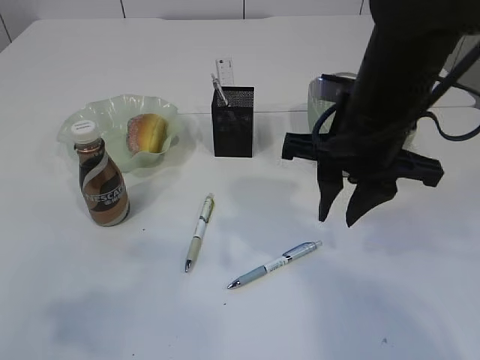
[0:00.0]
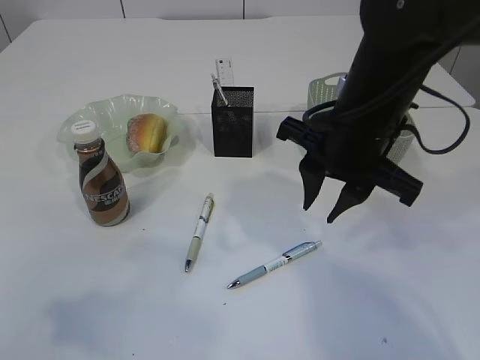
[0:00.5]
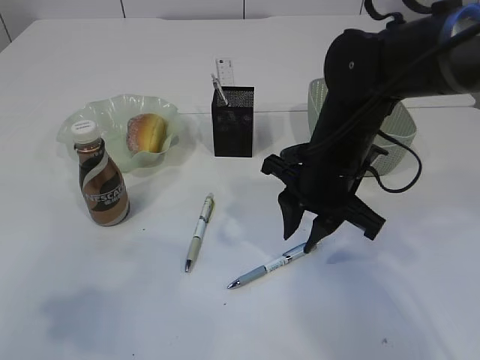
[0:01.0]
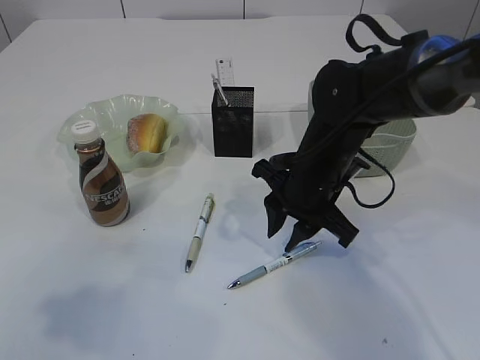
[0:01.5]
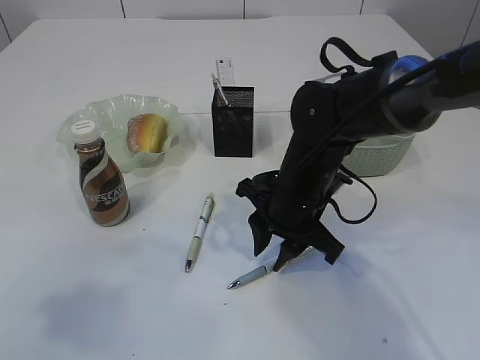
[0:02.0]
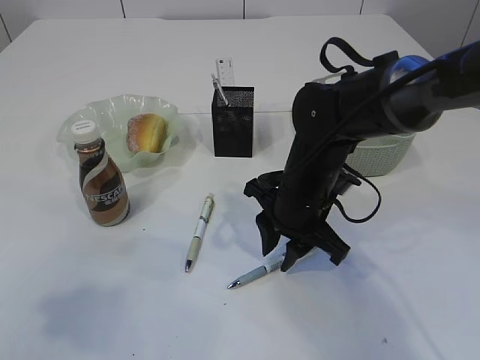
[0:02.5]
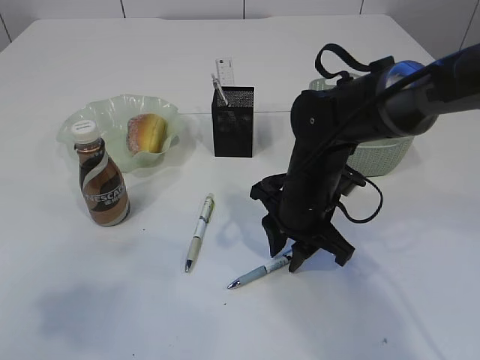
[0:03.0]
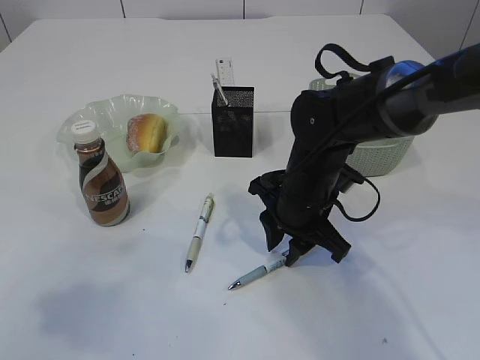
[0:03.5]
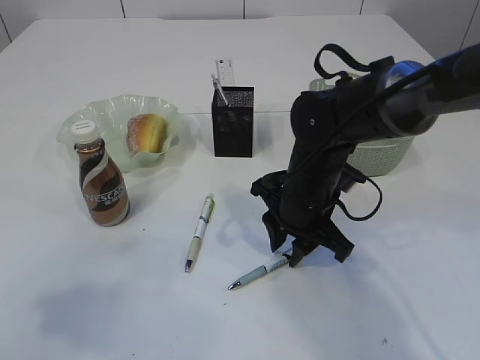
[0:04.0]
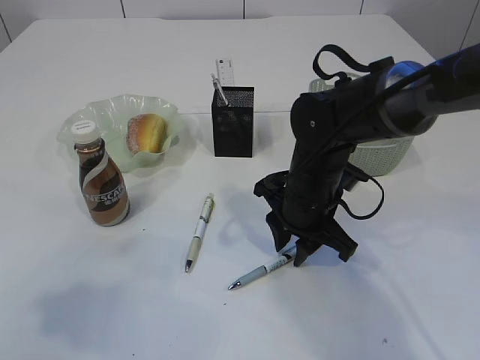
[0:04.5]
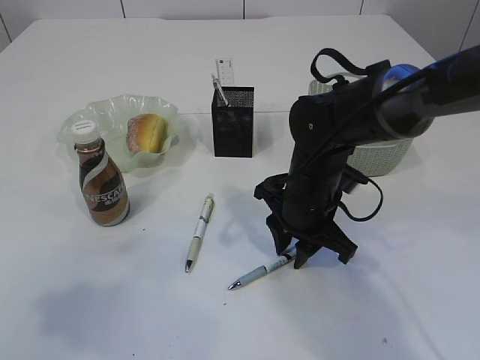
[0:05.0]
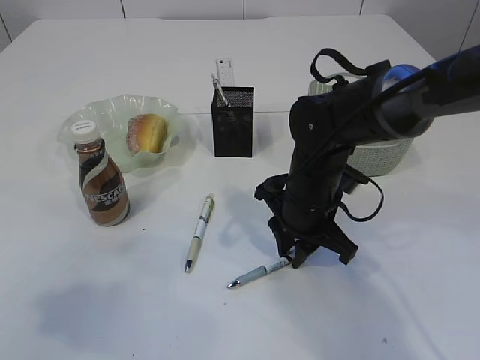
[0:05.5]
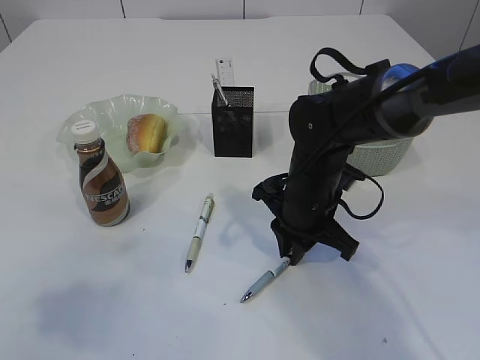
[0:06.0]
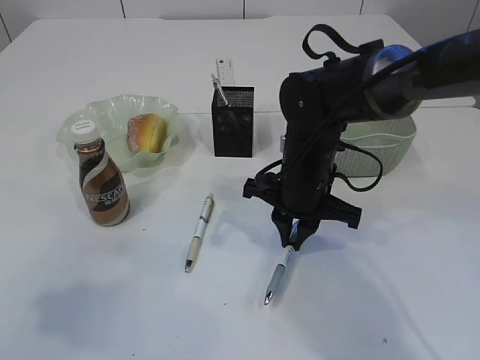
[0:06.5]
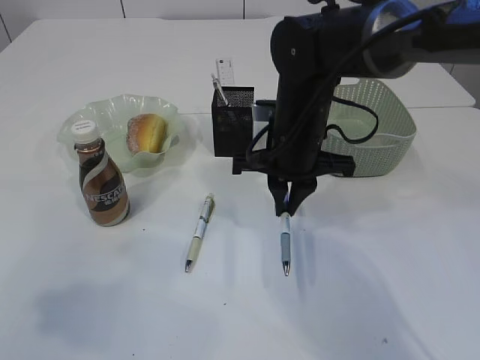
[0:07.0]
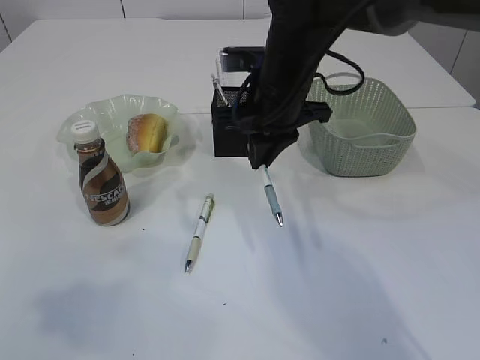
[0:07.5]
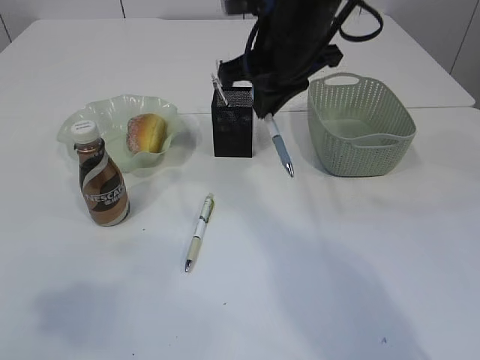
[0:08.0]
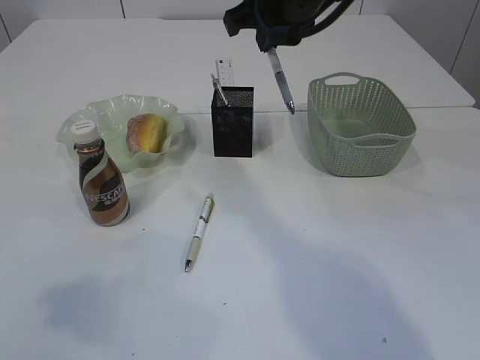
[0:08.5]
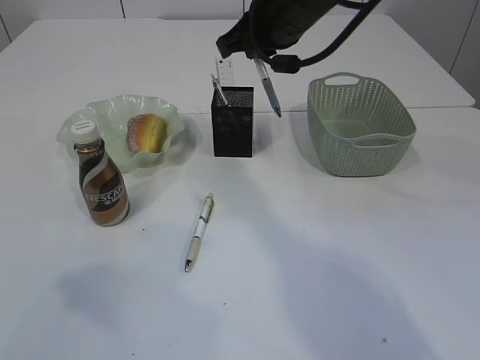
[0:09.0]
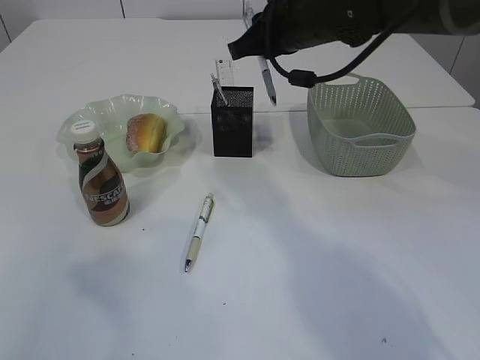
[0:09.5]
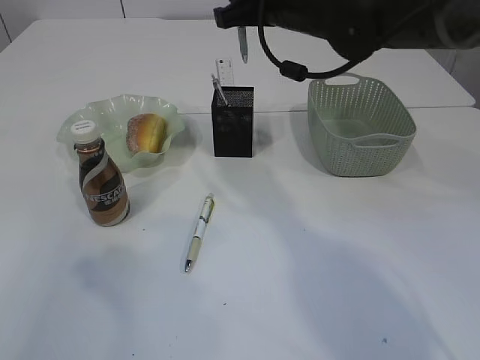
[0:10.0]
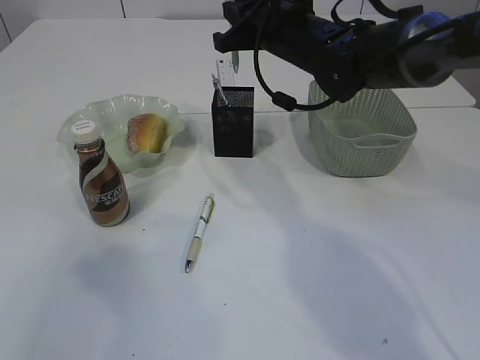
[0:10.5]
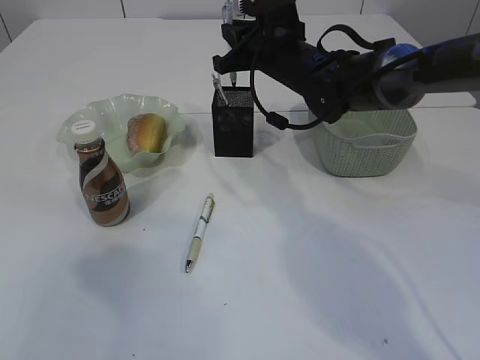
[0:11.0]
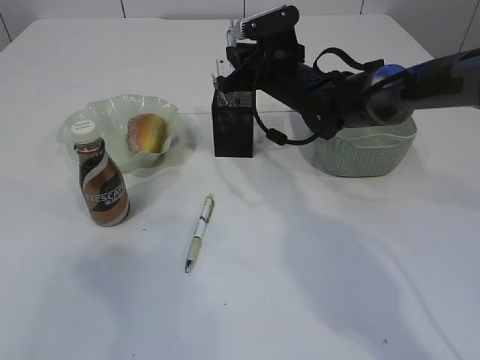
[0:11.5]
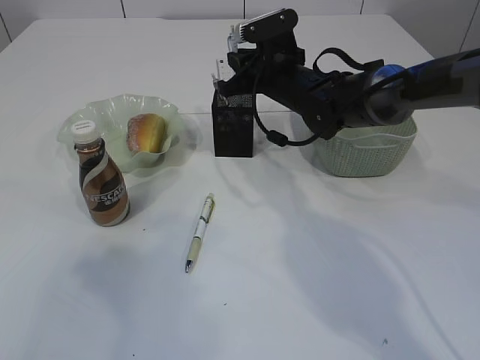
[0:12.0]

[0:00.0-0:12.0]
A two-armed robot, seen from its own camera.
Step, 0:00.0 to 0:07.0: Pick up the pen with right arm.
0:00.0 to 0:02.0: The right gripper goes approximately 10 cm downward.
0:02.0 to 0:04.0: The grippers stay close to where they were, moving slightly.
0:04.0 to 0:06.0: The two grippers keep their place.
0:06.0 to 0:08.0: The right gripper heads upward, covering some 15 cm.
0:08.0 to 0:10.0: The right gripper changes place by approximately 5 cm.
0:10.0 to 0:12.0: The right gripper is displaced downward and forward by approximately 15 cm.

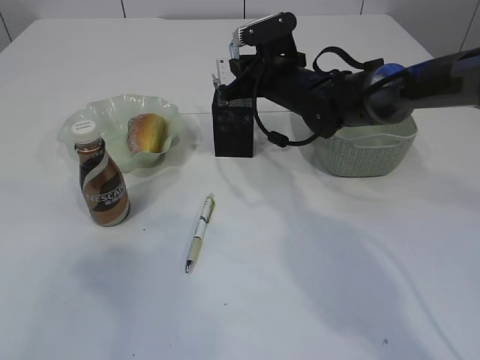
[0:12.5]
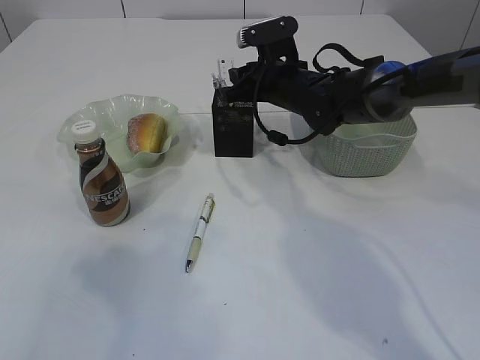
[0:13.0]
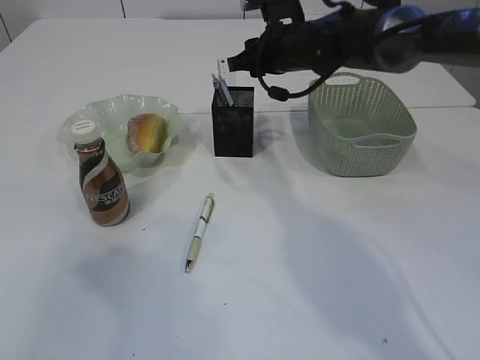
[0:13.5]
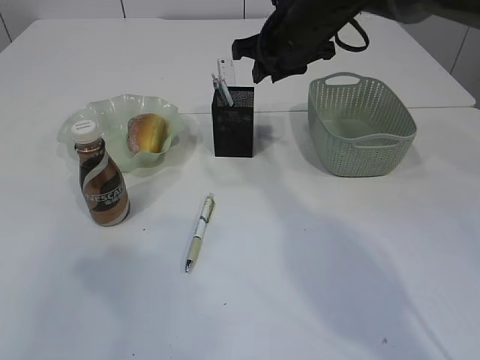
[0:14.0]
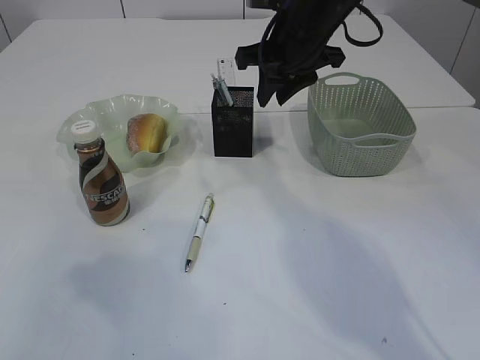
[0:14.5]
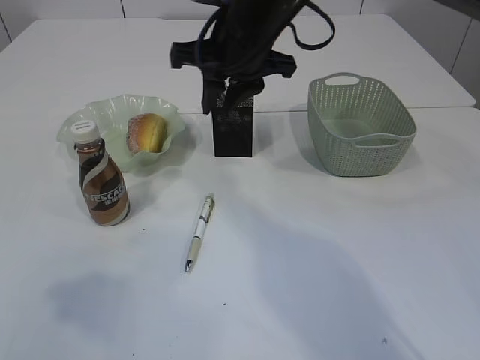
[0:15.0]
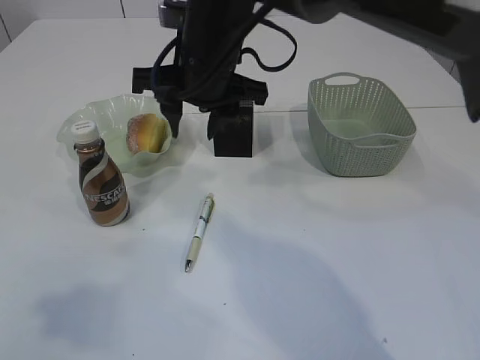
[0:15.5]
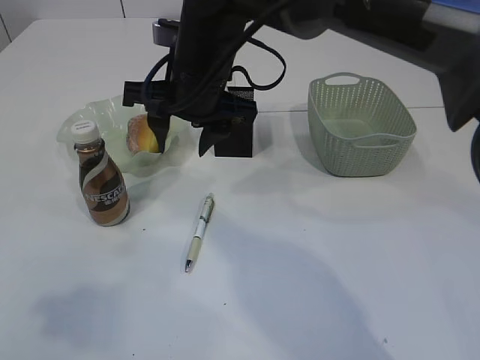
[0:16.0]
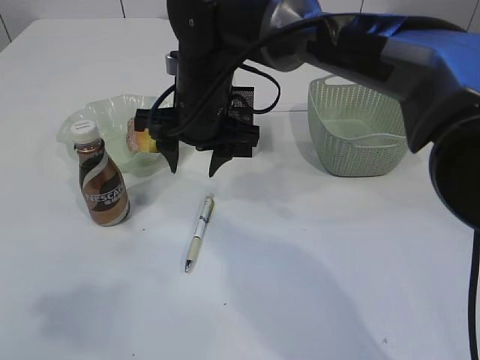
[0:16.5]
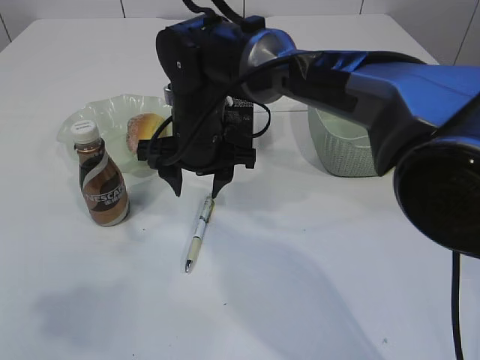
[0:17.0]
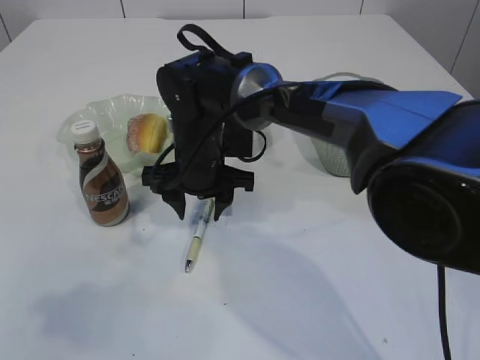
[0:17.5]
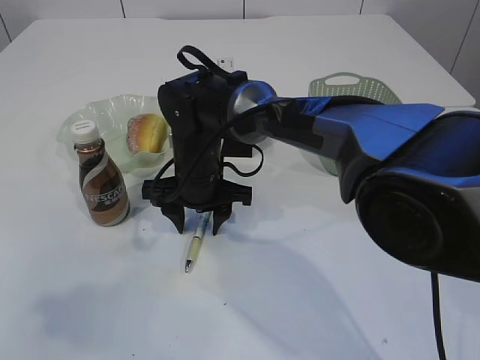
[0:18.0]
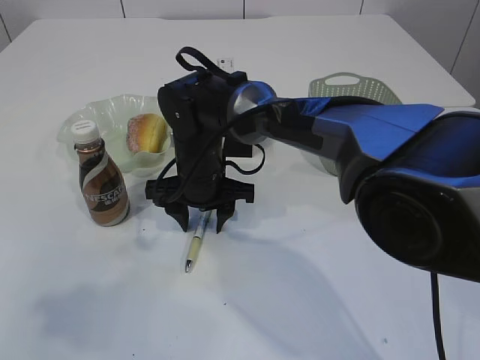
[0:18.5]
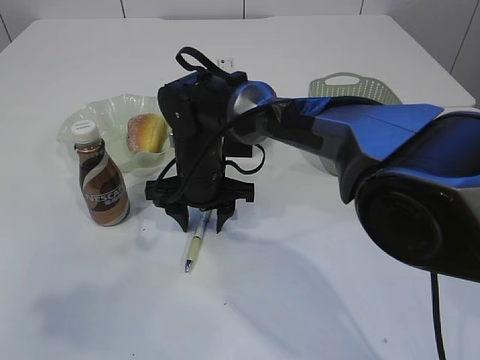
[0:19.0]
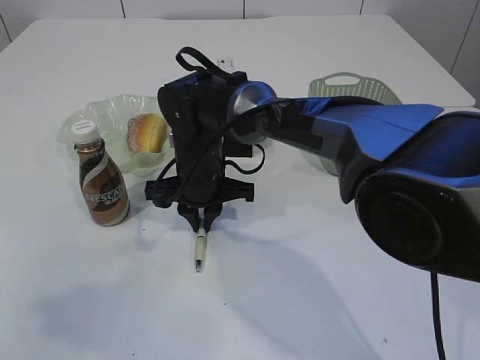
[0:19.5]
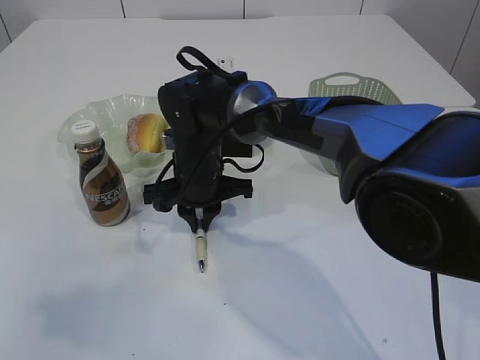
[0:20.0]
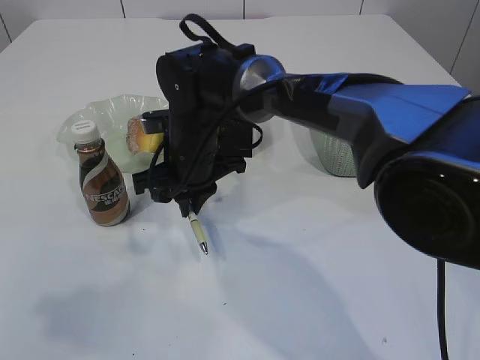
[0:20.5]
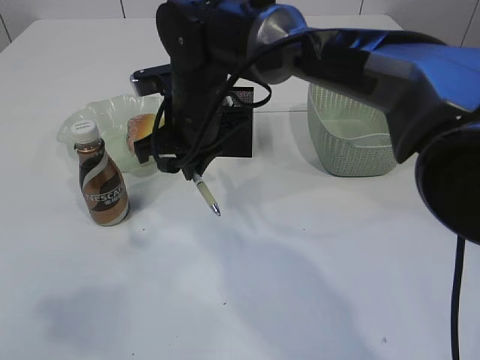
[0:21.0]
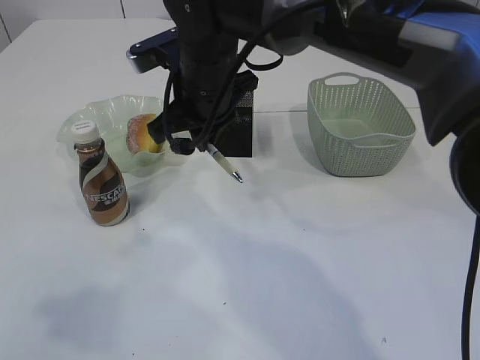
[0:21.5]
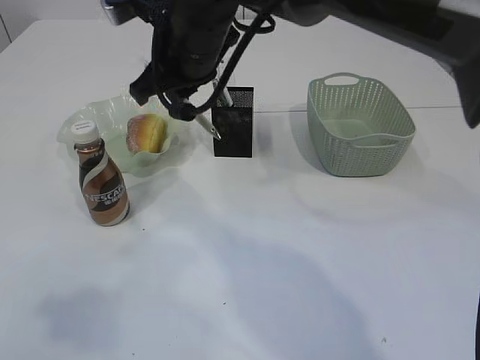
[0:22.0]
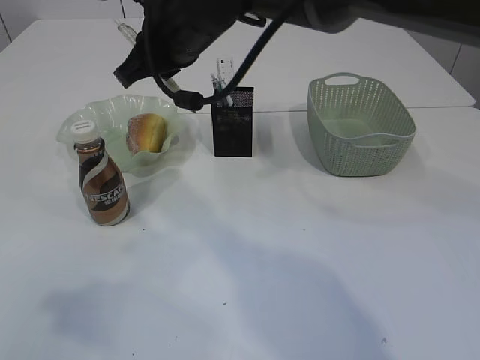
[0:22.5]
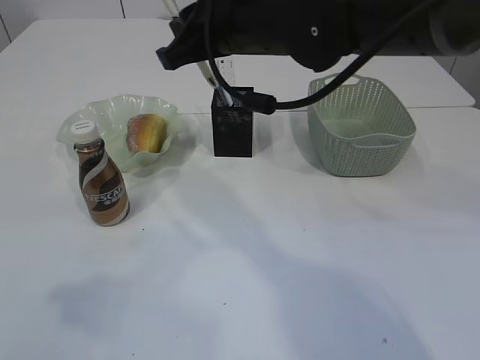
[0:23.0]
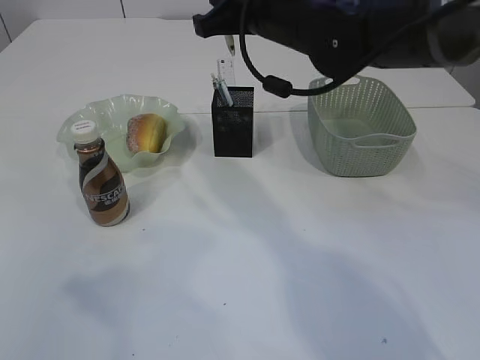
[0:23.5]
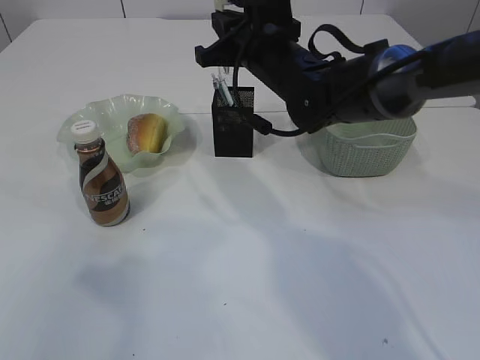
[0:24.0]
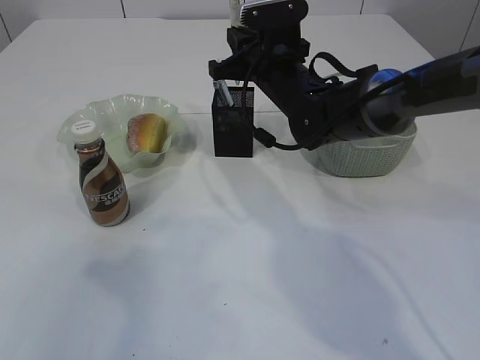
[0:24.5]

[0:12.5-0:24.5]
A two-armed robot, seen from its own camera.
Step, 0:14.5 to 0:20.5: Pick up the pen with right arm.
0:12.5 to 0:14.5: The right gripper heads upward, covering roughly 10 cm.
0:14.5 to 0:16.5: The right gripper moves to the left and backward, roughly 15 cm, and opens.
0:16.5 to 0:18.5: The right gripper heads downward, covering some 10 cm.
0:18.5 to 0:20.5: The right gripper closes up.
0:20.5 to 0:22.5: The right gripper moves upward, some 15 cm.
0:22.5 to 0:24.5: The right gripper is displaced to the right, downward and forward by some 15 cm.

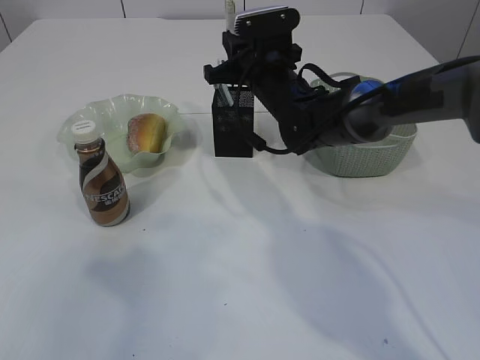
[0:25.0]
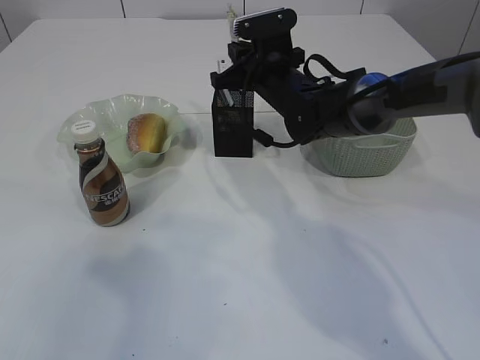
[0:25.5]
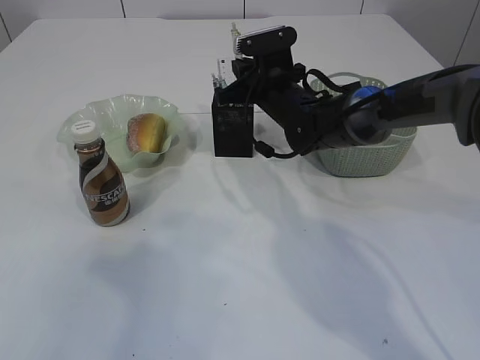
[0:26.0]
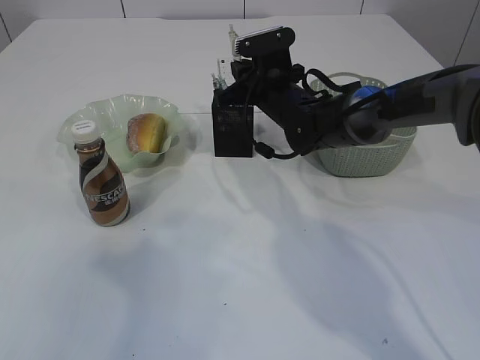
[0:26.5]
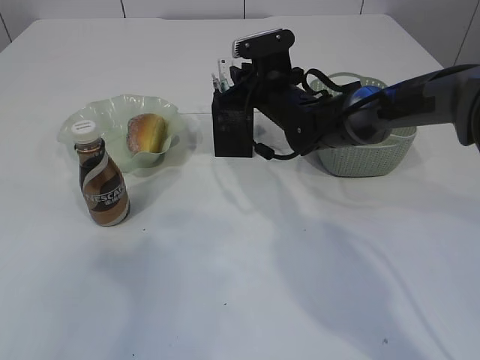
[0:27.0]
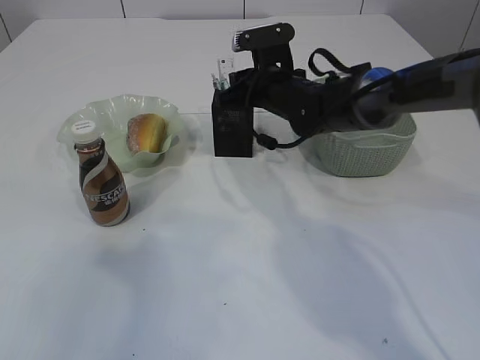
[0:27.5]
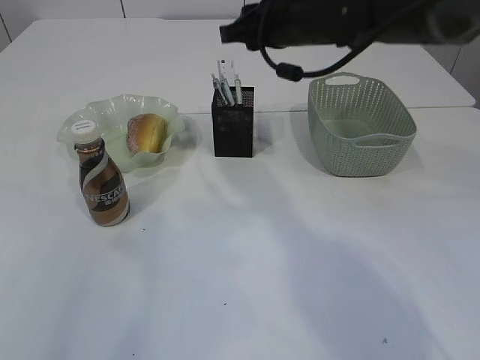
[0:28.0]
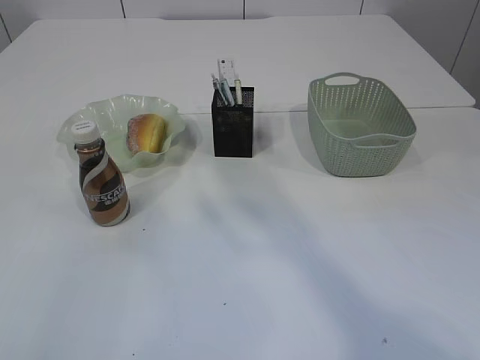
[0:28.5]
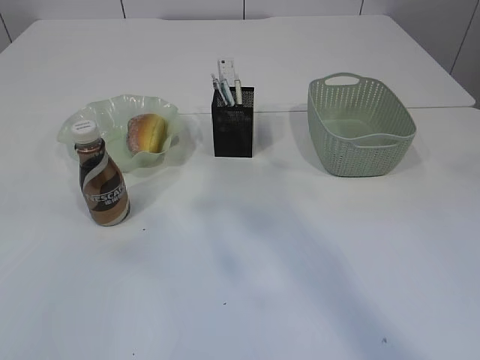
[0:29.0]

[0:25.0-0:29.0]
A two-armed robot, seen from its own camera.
Step, 0:25.0 to 0:27.5: Place the pen into the pen holder.
0:25.0 to 0:27.0: The grippers stay close to where they were, moving slightly.
0:27.0 to 0:29.0: The right gripper is displaced upward and backward by about 35 cm. Meanwhile the left gripper moves upward and backward, roughly 15 cm, and opens its fingers.
